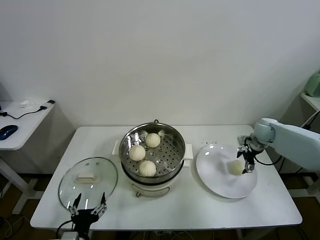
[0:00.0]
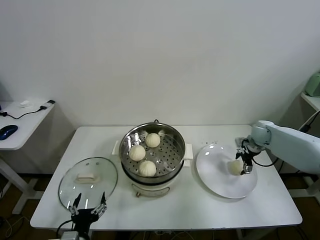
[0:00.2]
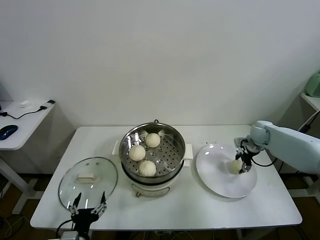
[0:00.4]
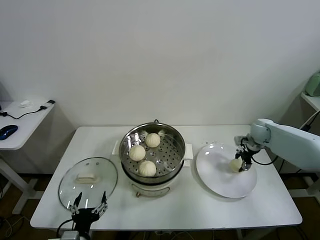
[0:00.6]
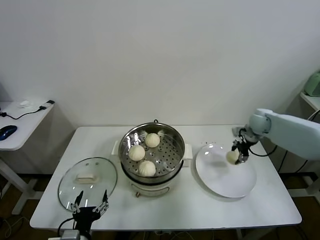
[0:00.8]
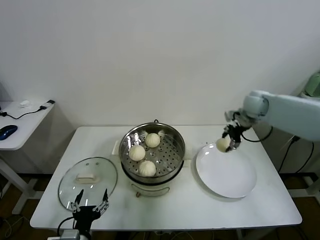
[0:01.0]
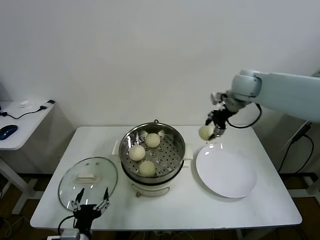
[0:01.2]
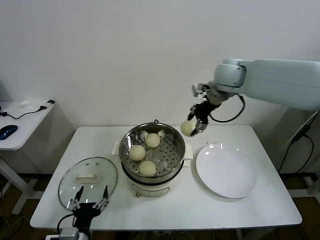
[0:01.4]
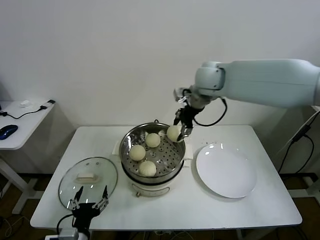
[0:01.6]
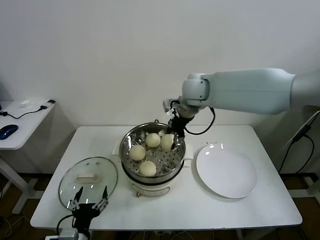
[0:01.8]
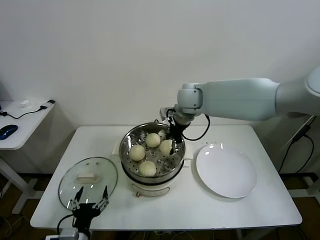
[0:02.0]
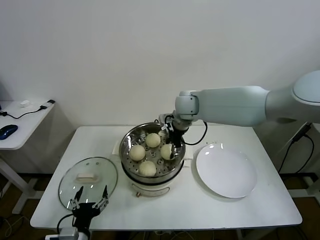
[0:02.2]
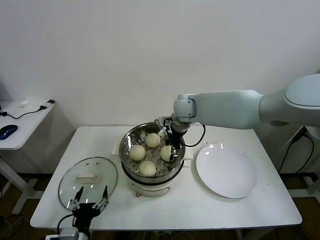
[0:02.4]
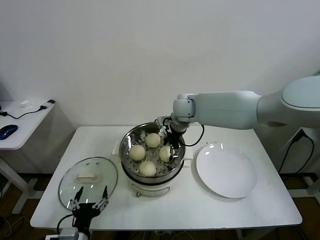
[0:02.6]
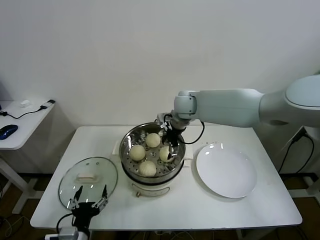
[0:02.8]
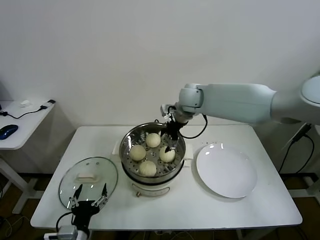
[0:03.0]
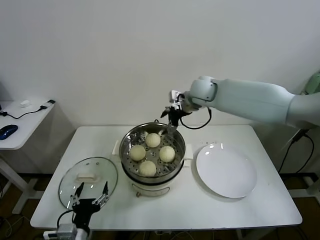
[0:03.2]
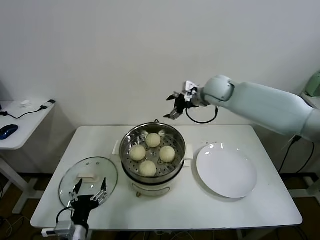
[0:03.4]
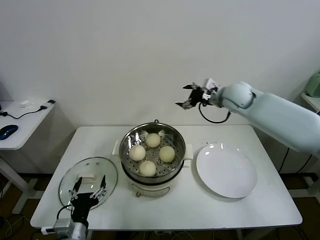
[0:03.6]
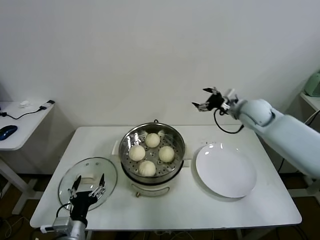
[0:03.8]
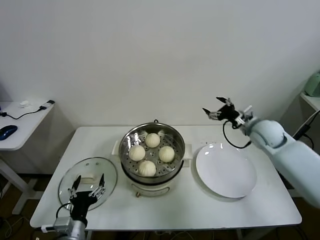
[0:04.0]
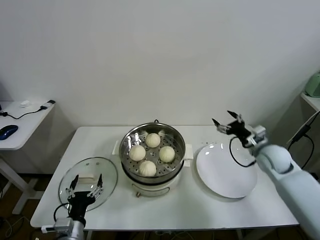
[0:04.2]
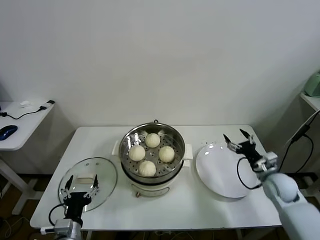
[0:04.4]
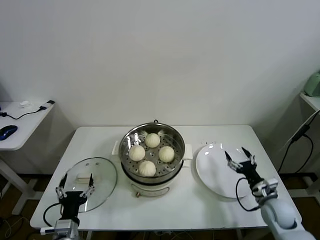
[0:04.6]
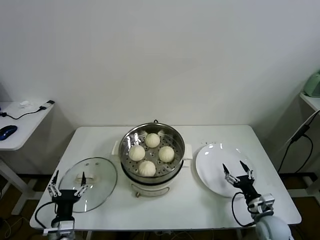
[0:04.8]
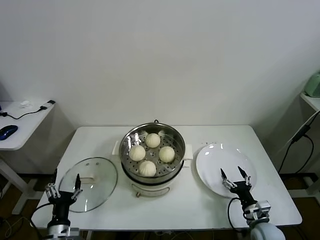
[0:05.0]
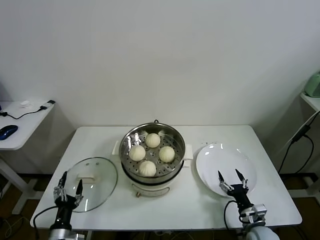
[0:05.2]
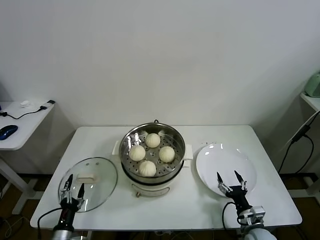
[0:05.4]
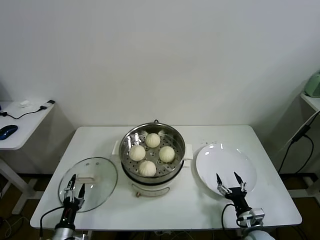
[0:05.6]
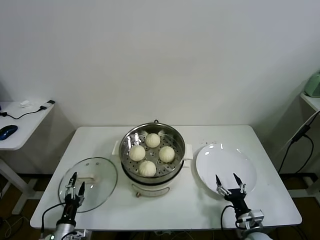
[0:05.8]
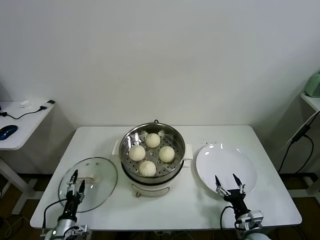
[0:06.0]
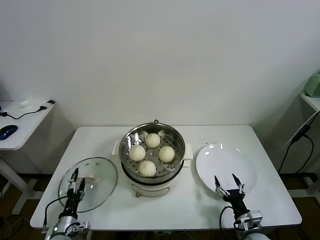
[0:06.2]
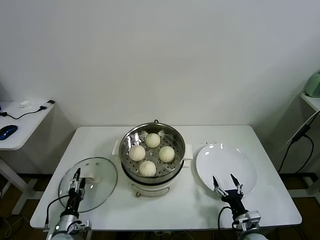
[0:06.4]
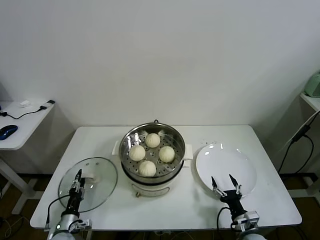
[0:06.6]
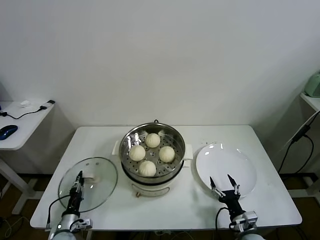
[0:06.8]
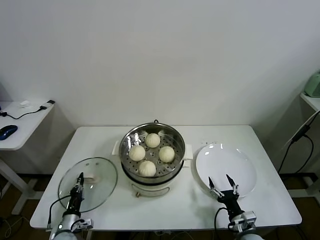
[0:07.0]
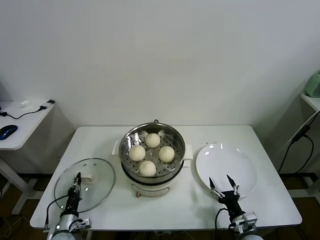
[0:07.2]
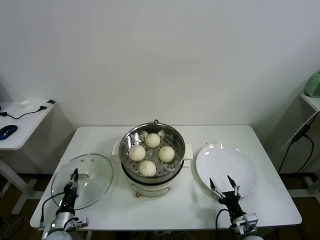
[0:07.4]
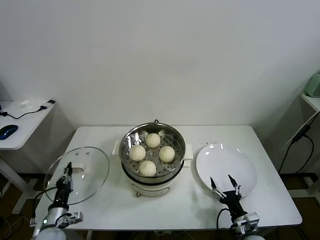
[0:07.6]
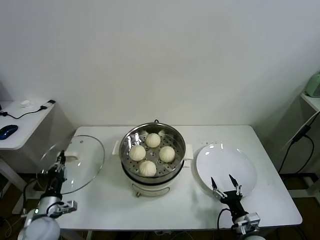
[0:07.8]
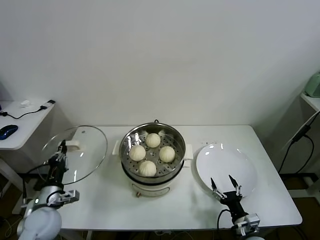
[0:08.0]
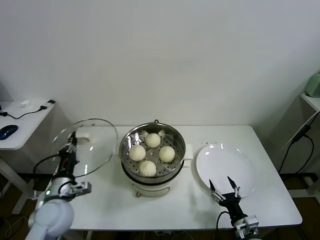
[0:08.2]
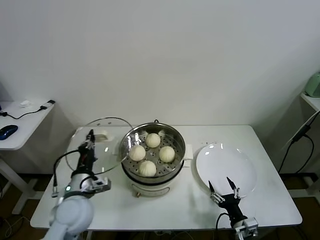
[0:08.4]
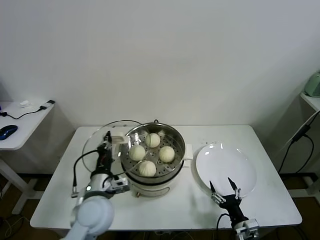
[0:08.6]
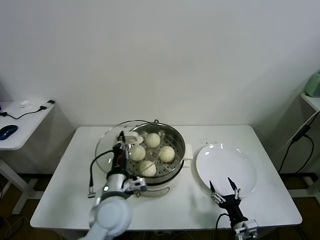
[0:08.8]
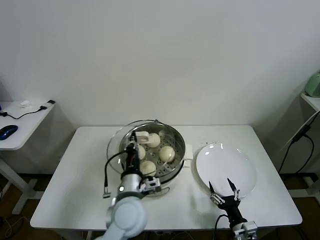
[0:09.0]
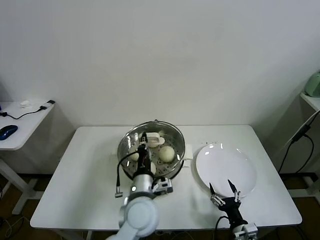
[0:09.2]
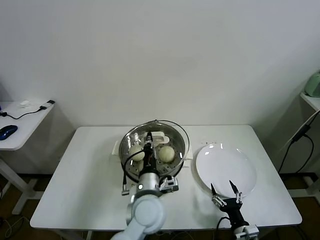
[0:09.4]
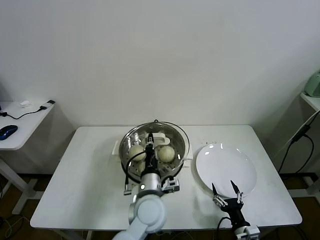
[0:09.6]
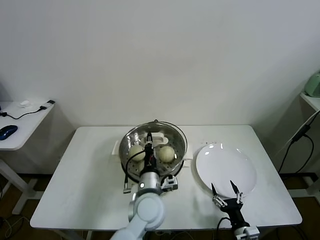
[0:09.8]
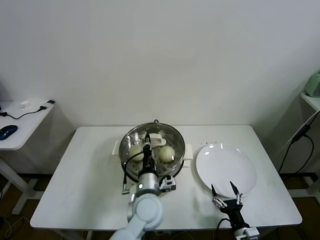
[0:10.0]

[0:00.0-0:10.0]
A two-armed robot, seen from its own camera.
Task of the whole recording: take steamed baozi put them in steamer.
Step, 0:00.8 to 0:02.6: Place the baozi on the steamer with right gripper.
Step, 0:02.8 to 0:07.0: Grasp the baozi in the plate with right gripper.
0:00.0 to 0:01.4: The right gripper goes about 35 cm upward and to the left, and closes its fingers.
0:01.4 to 0:02.8: The right gripper goes about 15 cm downward and to the left, and opens up.
0:02.8 to 0:04.2: The right gripper goes some 35 cm to the right, downward and backward.
0:04.2 to 0:05.8: The left gripper is displaced downward and to the left by roughly 15 cm; the right gripper travels backward and downward by approximately 30 cm.
0:05.8 to 0:07.2: The left gripper moves roughly 5 cm, and closes its fingers.
0:07.2 to 0:08.6: The left gripper moves upward and to the right, some 30 cm.
0:08.6 to 0:10.0: The left gripper moves to the right, roughly 15 cm.

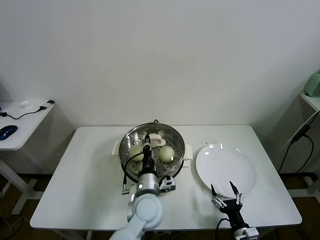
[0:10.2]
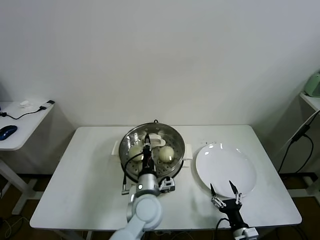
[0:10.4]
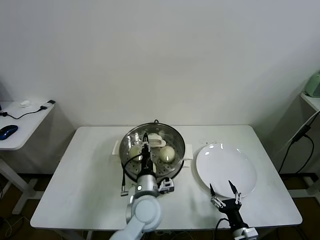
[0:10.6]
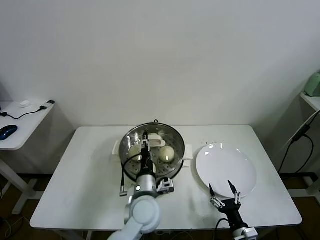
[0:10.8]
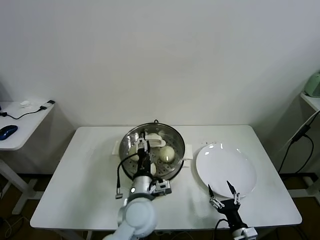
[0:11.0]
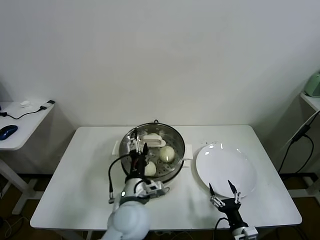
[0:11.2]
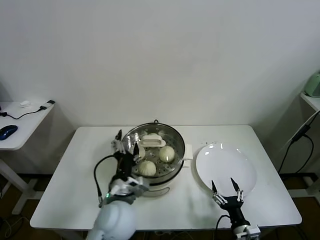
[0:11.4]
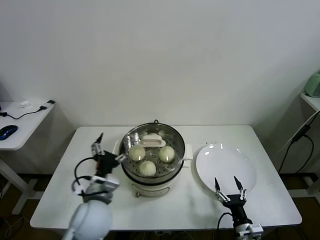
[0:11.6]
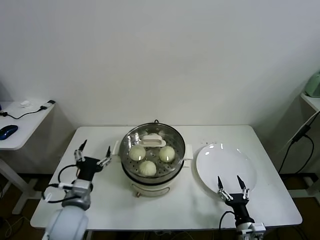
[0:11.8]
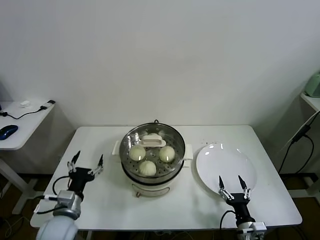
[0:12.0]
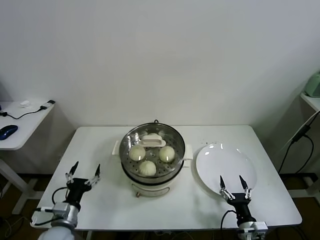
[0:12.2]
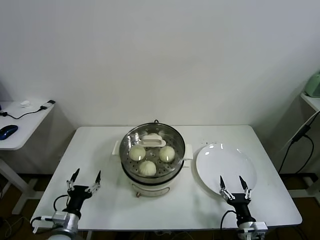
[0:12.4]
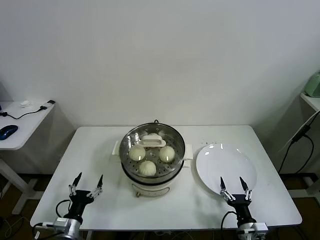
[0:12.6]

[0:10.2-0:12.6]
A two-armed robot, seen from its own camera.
Task of the whole recording: take steamed baozi put them in steamer.
0:10.2 to 0:11.4: The left gripper goes about 10 cm to the left and upward, and opens its fingers.
0:11.4 to 0:12.6: The left gripper is displaced to the left and downward by approximately 25 cm.
